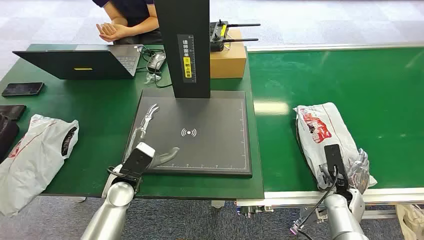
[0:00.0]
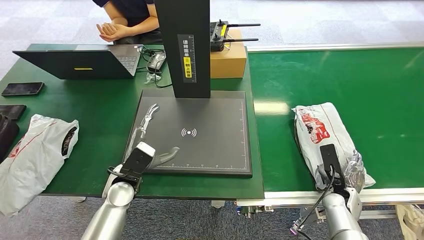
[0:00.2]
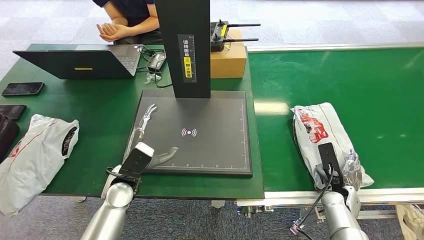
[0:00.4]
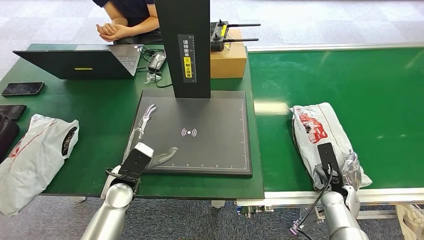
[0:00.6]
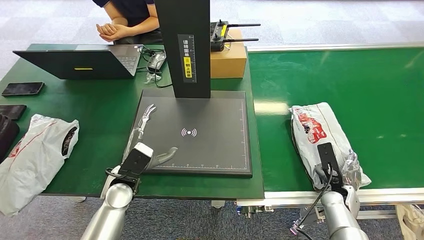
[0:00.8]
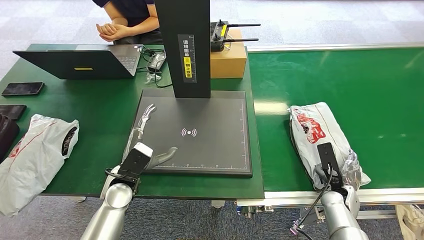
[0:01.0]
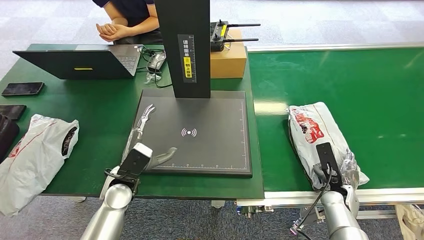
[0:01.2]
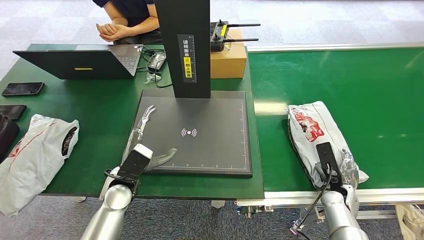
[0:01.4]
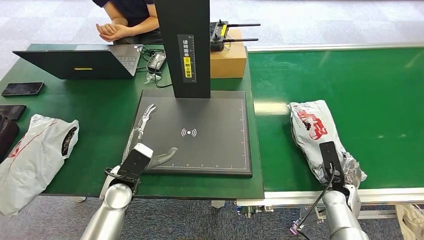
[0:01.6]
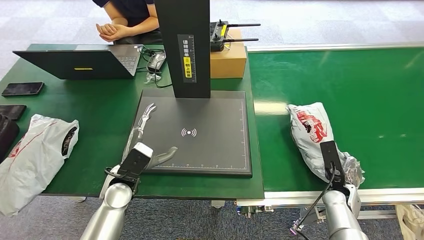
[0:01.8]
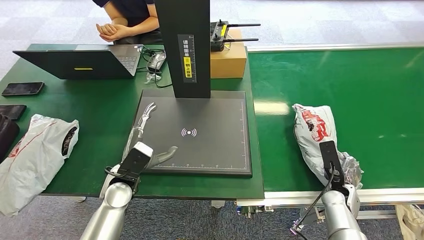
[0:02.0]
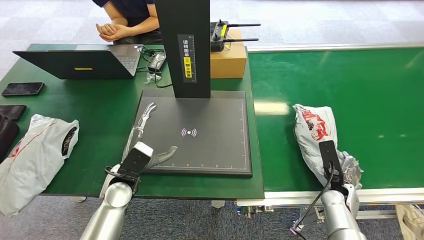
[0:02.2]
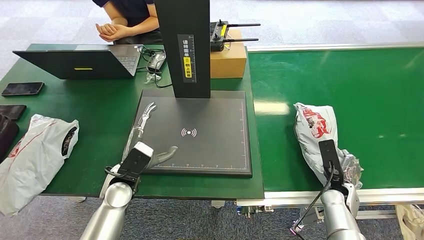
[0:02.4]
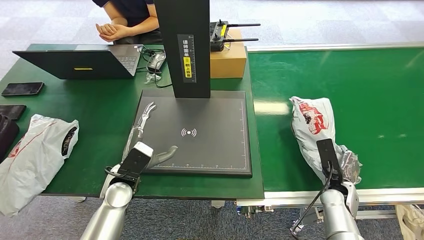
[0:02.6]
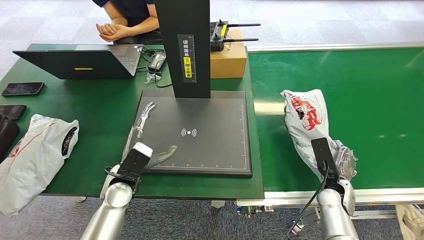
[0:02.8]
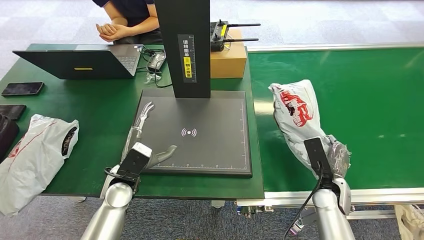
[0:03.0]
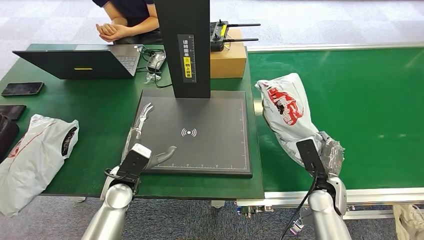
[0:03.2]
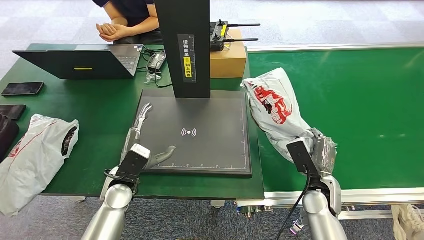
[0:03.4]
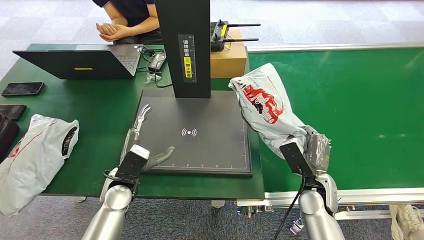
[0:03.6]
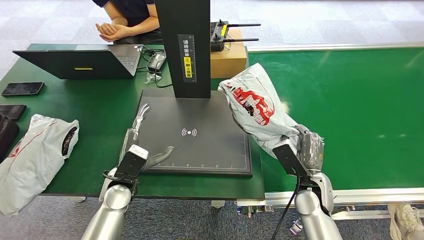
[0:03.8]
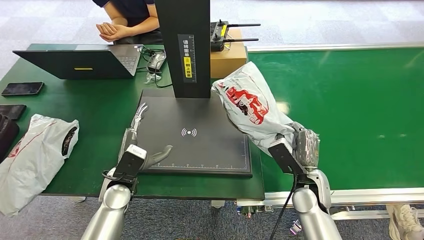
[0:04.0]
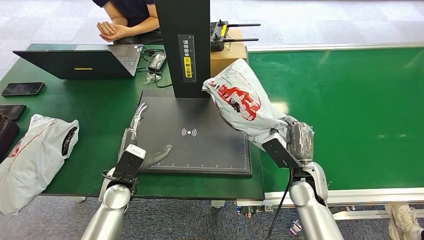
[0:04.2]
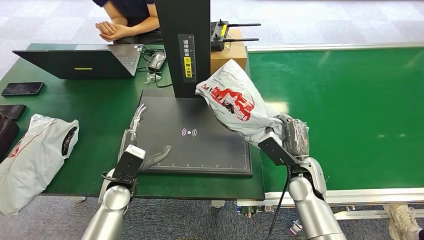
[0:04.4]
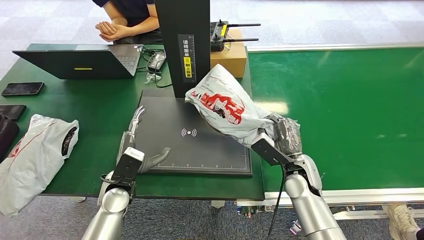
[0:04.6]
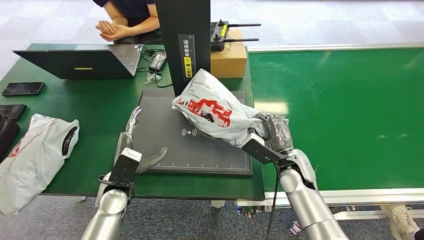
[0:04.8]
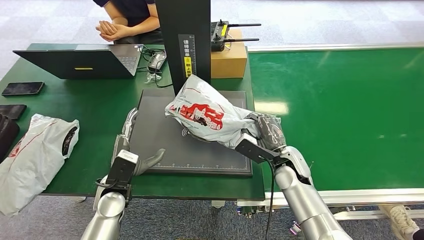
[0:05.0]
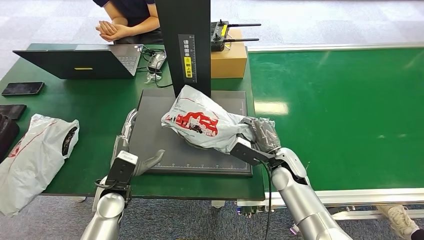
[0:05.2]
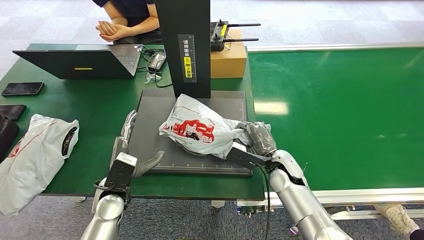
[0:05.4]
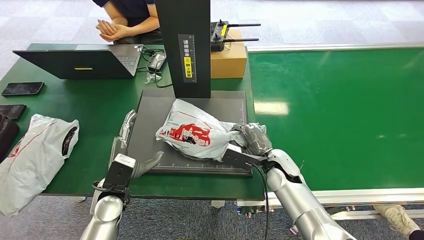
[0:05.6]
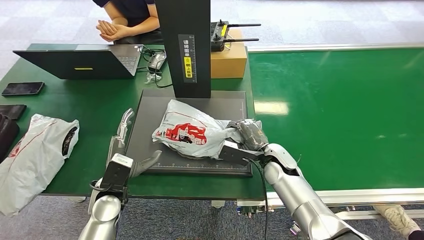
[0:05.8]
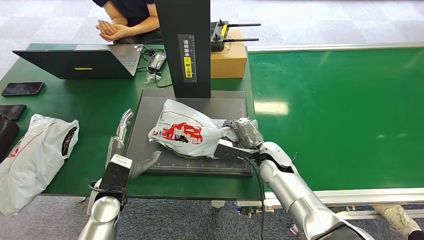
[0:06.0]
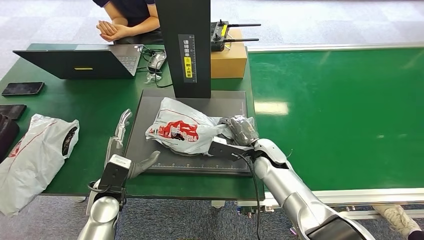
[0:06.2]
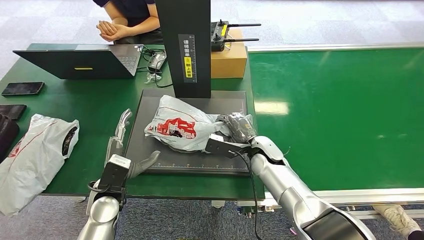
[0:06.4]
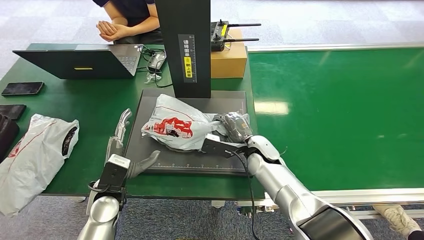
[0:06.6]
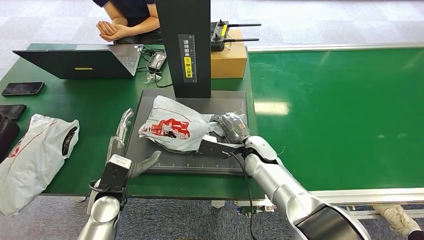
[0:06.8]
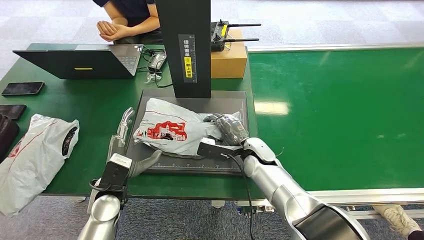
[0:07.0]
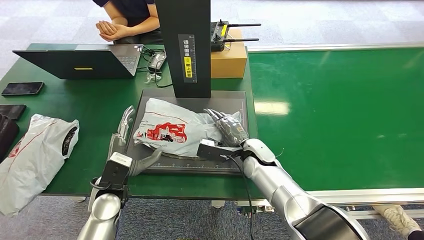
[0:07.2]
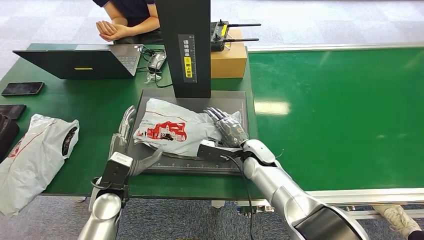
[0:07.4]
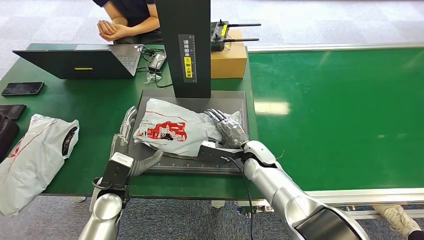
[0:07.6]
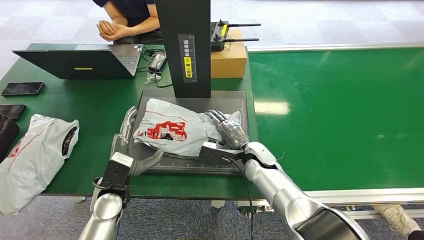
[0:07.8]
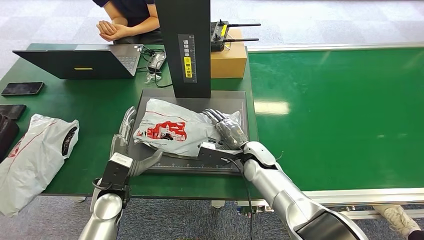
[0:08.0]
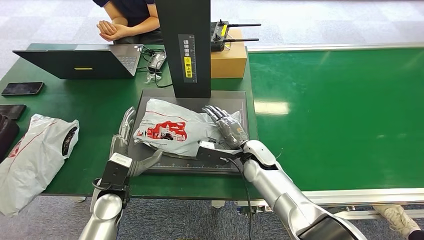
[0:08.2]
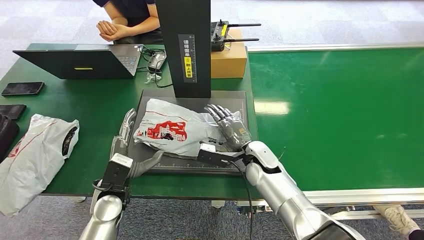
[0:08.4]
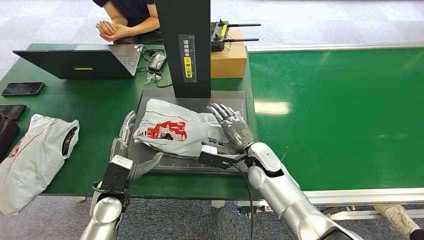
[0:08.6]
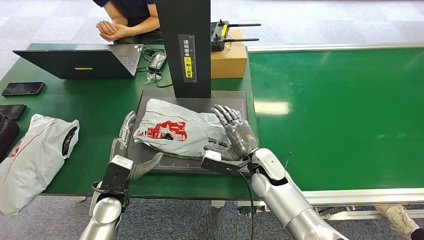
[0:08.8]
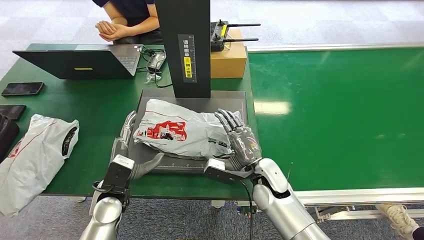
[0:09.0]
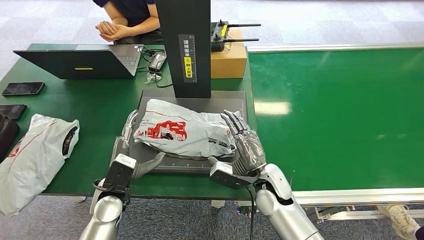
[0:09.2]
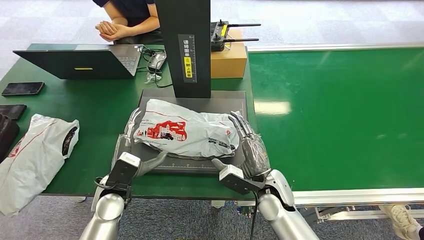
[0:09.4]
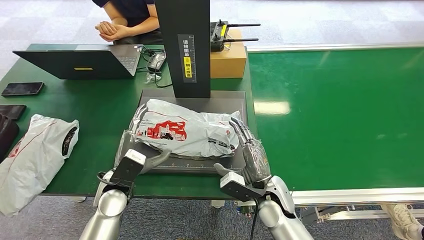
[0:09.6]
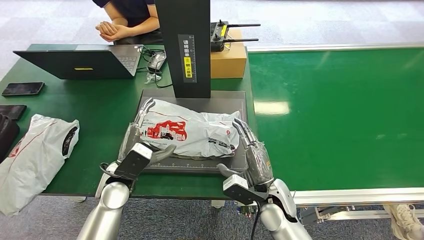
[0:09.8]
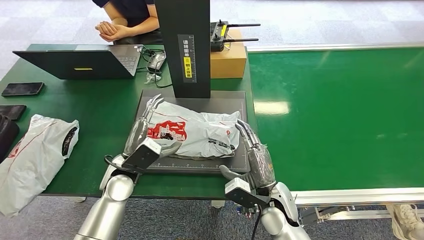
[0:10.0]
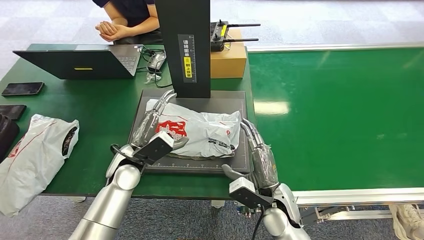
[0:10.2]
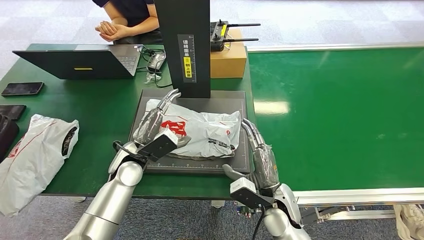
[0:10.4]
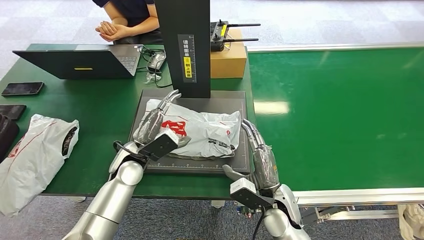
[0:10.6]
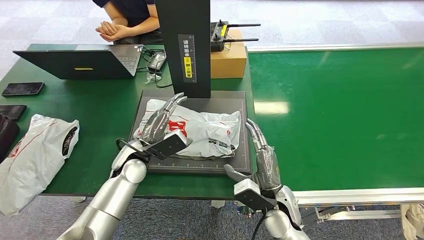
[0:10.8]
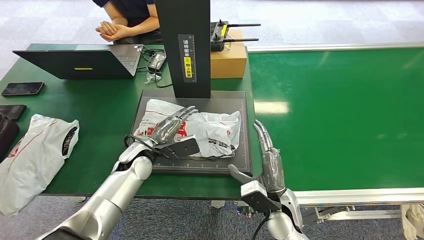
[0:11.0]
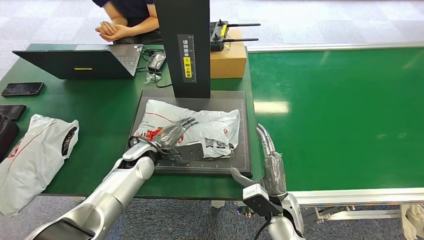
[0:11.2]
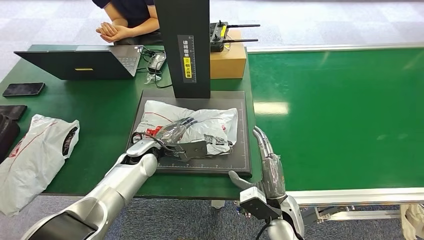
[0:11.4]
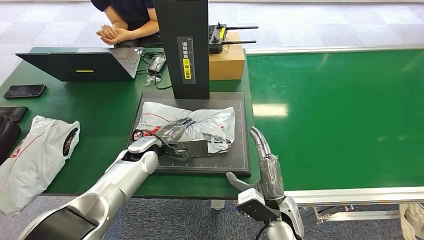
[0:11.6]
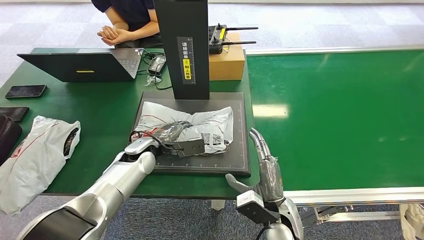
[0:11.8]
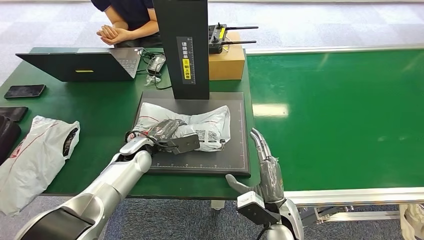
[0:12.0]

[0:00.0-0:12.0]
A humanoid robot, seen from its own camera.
Step, 0:00.0 to 0:03.2: Pick up the package from the conveyor belt.
Step, 0:03.4 to 0:07.8: Place the package onto the inbound machine.
0:01.6 to 0:03.0: The right hand ends up approximately 5 cm from where it was.
0:03.0 to 0:04.4: The right hand goes about 10 cm to the left and upward.
0:04.4 to 0:06.0: The right hand moves to the left and forward, roughly 10 cm.
0:06.0 to 0:07.6: There are only small adjustments of the hands.
0:07.6 to 0:09.0: The right hand is displaced backward by roughly 5 cm.
0:09.0 to 0:10.4: The left hand heads forward, covering roughly 10 cm. The right hand is displaced backward by roughly 5 cm.

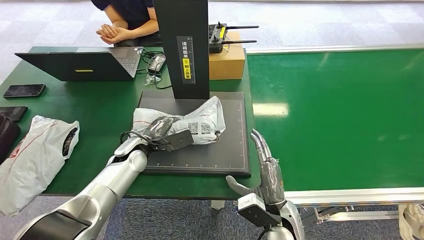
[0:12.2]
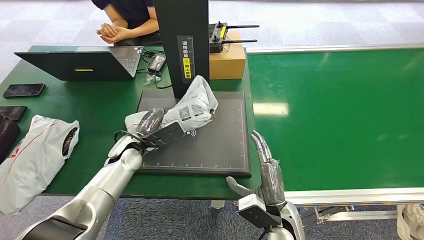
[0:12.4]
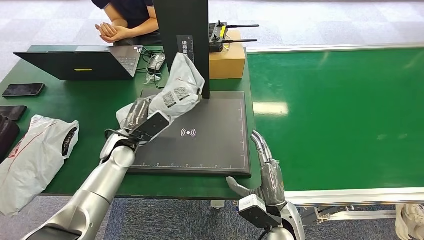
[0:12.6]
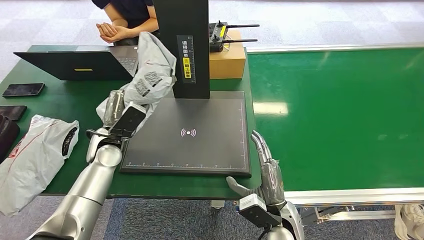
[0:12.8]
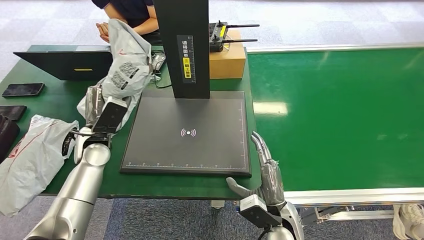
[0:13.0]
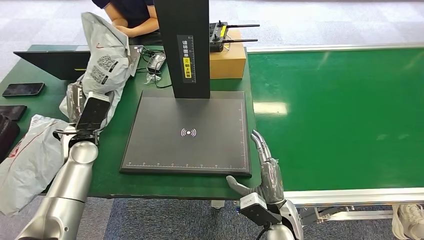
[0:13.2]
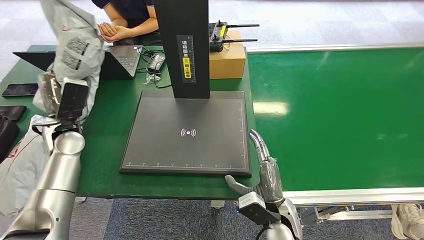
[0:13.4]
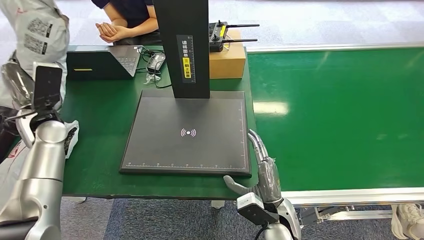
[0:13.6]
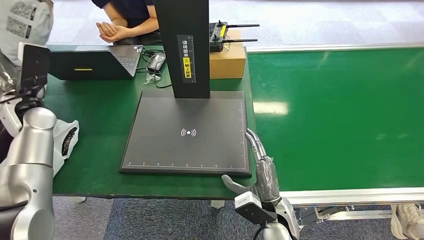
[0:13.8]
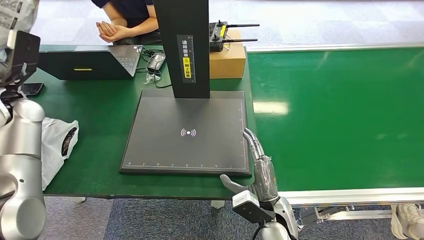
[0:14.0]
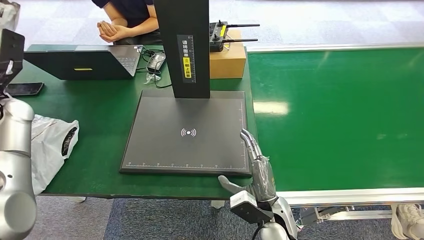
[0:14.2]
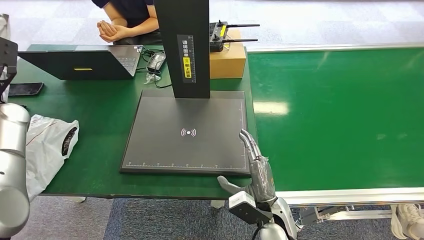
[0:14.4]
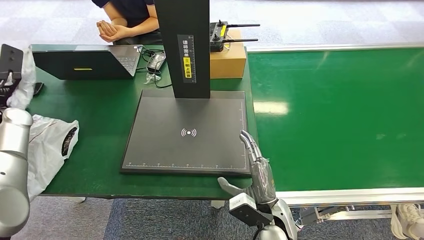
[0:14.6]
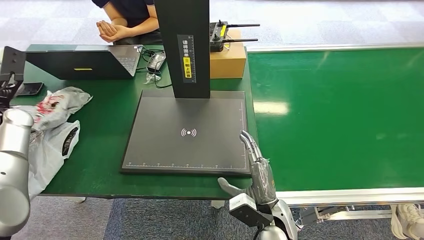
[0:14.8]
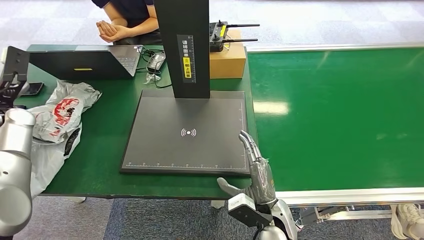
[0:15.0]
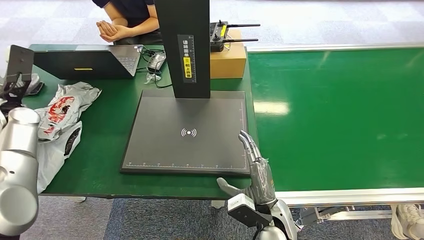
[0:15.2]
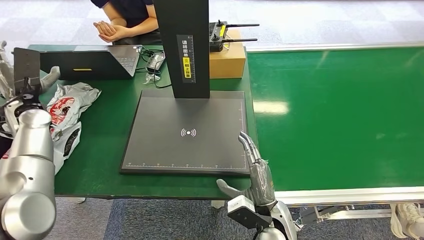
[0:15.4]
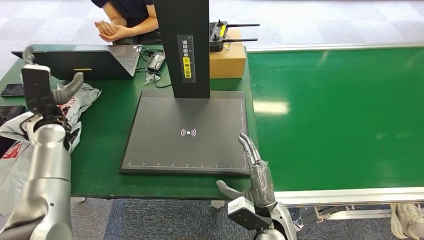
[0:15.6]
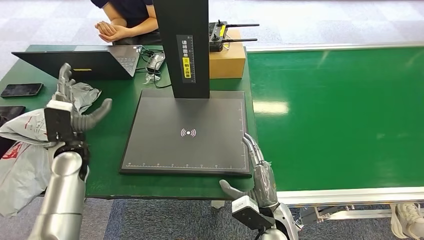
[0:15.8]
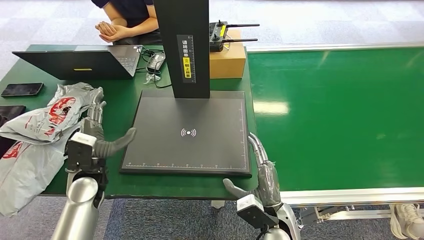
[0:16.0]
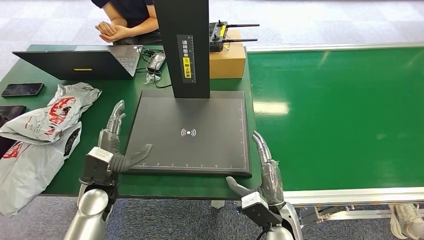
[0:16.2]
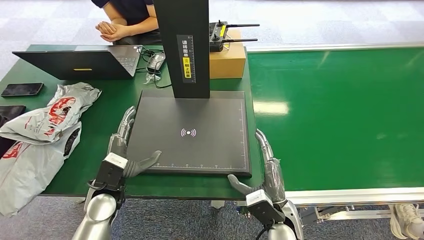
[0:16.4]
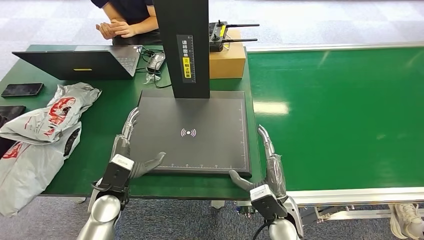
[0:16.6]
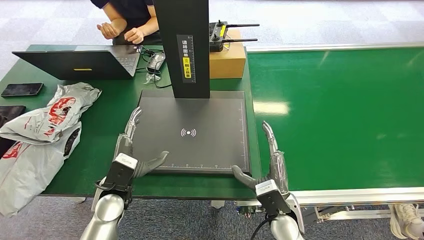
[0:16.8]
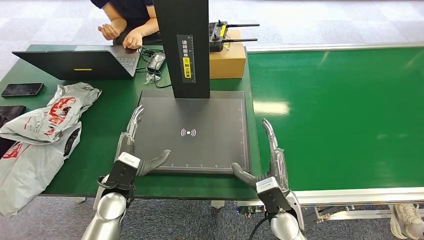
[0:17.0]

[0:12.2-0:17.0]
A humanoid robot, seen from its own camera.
Step, 0:13.4 to 0:17.0: Place the package into the parcel locker.
0:15.4 to 0:17.0: The left hand heads to the right, backward and downward, covering approximately 30 cm.
